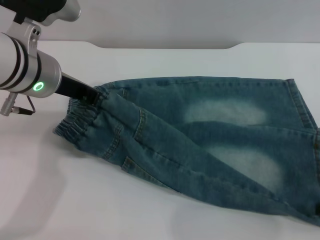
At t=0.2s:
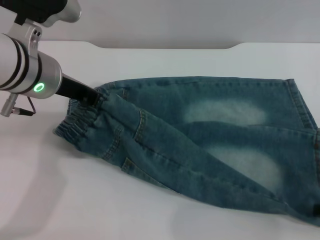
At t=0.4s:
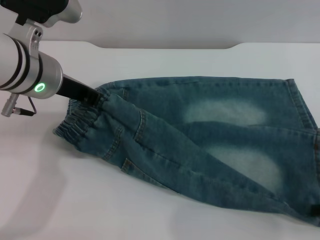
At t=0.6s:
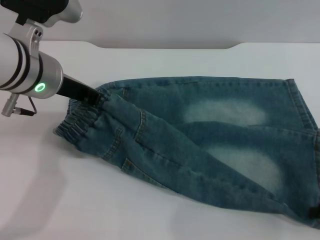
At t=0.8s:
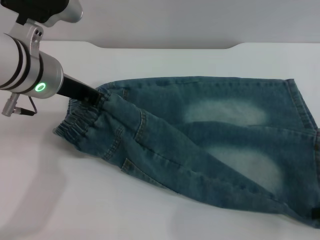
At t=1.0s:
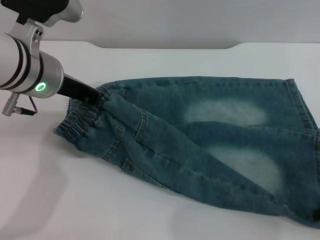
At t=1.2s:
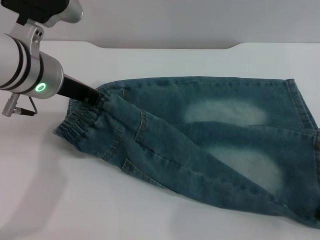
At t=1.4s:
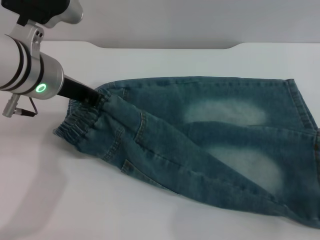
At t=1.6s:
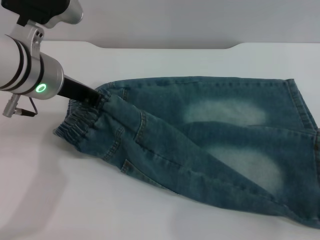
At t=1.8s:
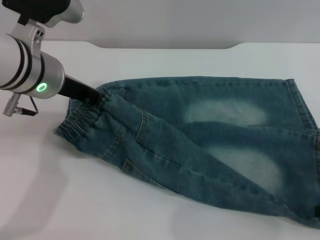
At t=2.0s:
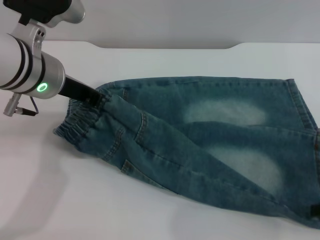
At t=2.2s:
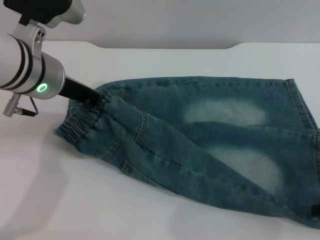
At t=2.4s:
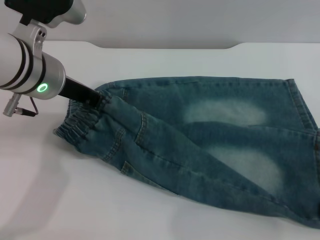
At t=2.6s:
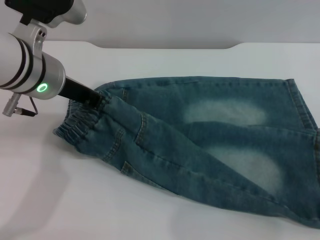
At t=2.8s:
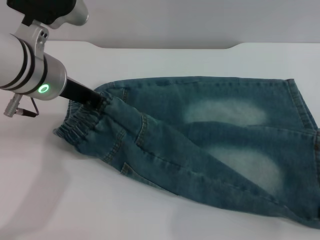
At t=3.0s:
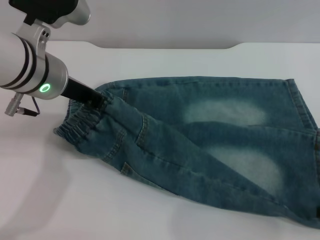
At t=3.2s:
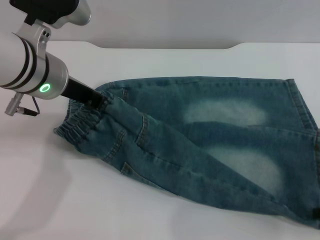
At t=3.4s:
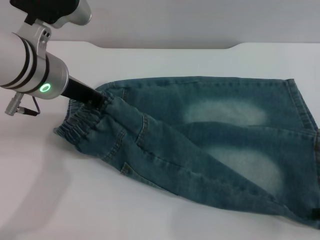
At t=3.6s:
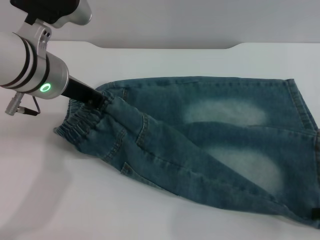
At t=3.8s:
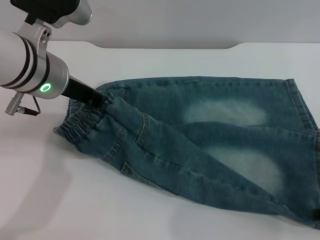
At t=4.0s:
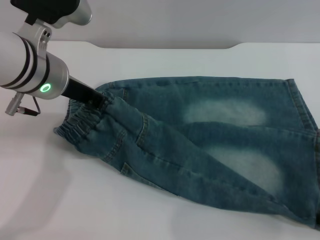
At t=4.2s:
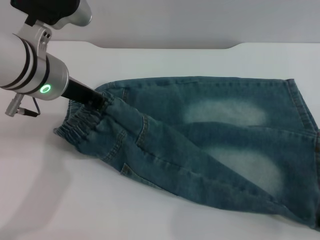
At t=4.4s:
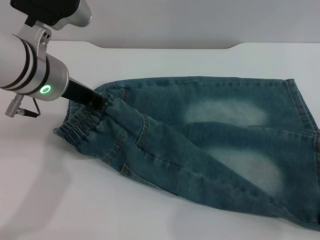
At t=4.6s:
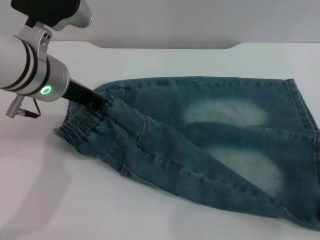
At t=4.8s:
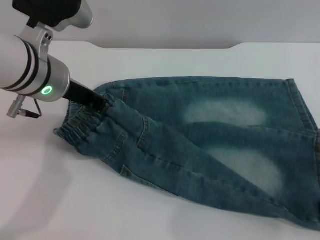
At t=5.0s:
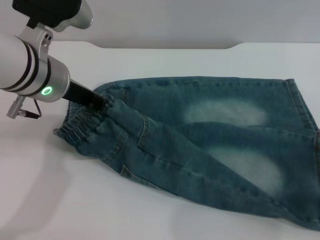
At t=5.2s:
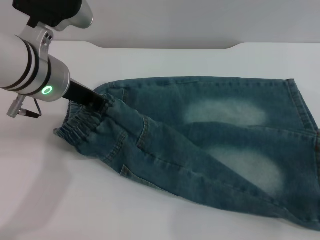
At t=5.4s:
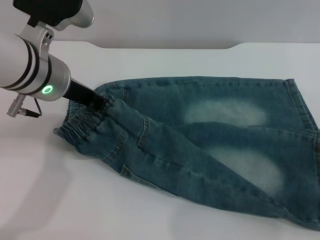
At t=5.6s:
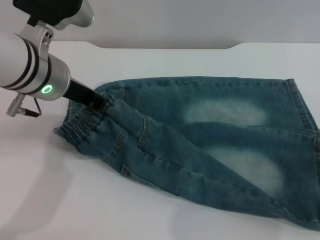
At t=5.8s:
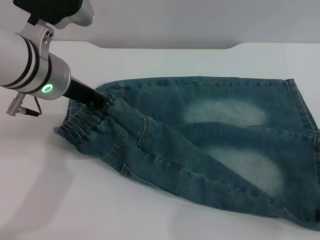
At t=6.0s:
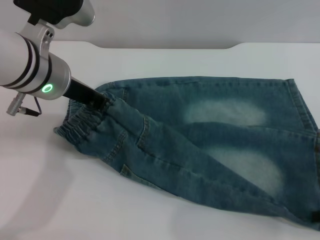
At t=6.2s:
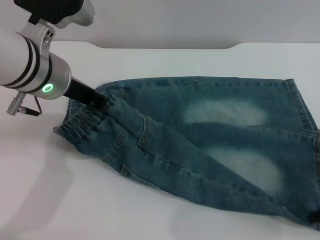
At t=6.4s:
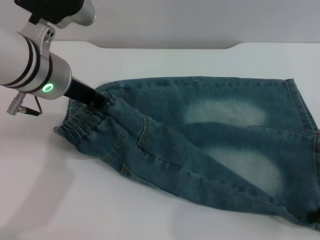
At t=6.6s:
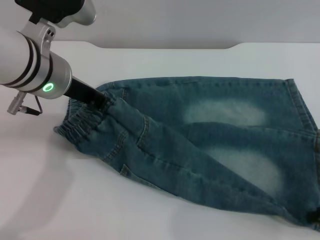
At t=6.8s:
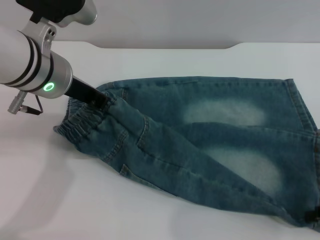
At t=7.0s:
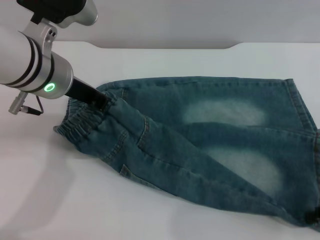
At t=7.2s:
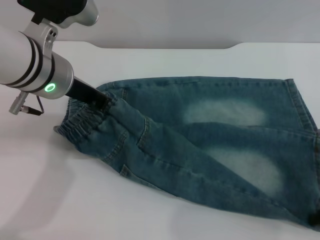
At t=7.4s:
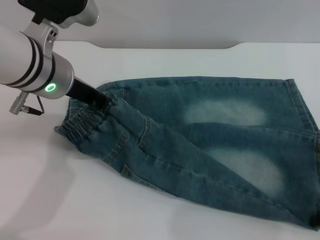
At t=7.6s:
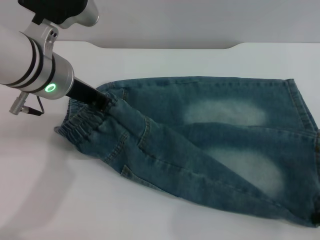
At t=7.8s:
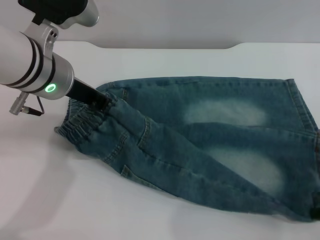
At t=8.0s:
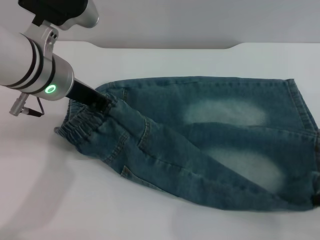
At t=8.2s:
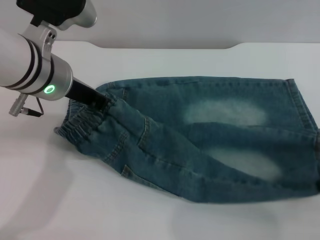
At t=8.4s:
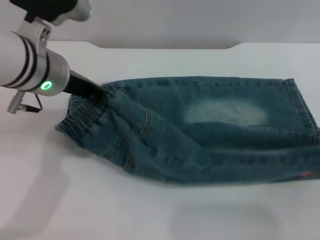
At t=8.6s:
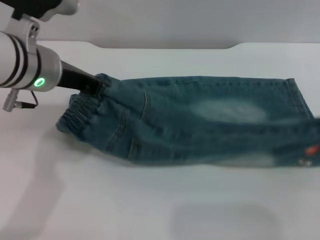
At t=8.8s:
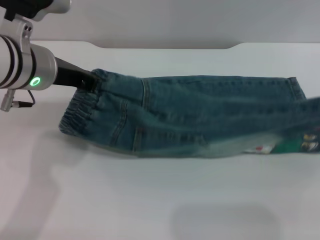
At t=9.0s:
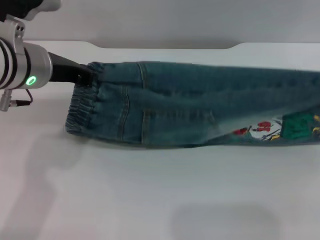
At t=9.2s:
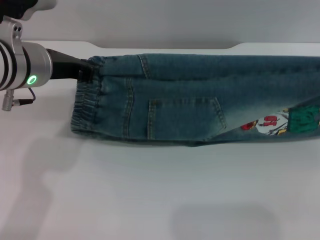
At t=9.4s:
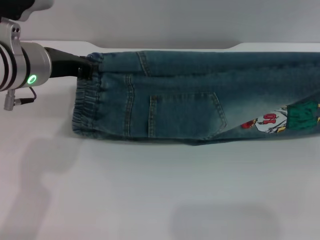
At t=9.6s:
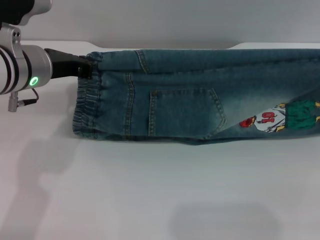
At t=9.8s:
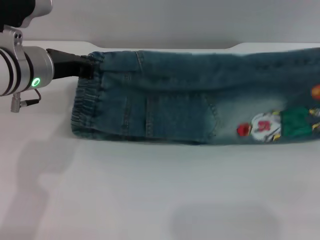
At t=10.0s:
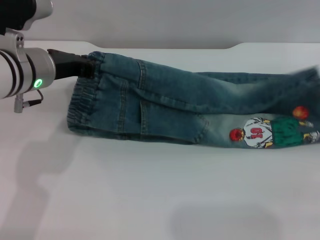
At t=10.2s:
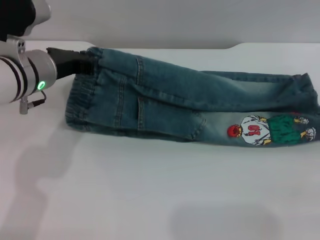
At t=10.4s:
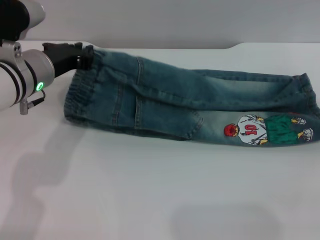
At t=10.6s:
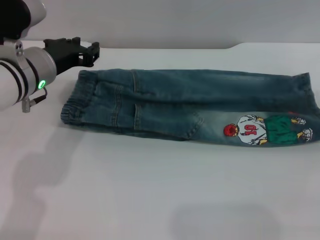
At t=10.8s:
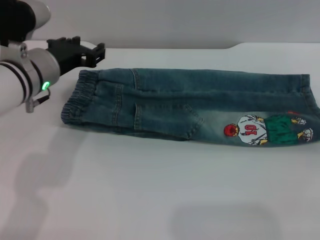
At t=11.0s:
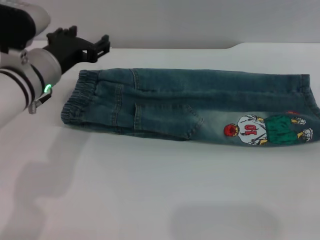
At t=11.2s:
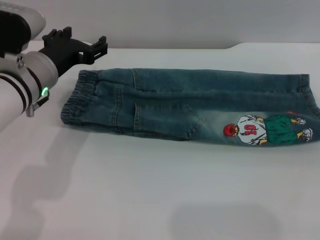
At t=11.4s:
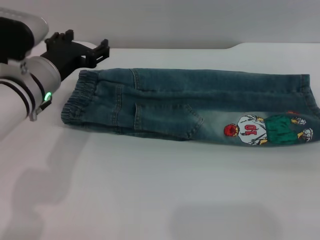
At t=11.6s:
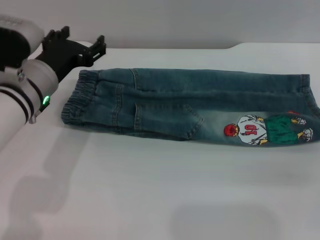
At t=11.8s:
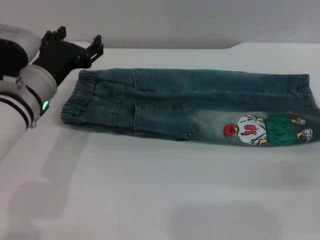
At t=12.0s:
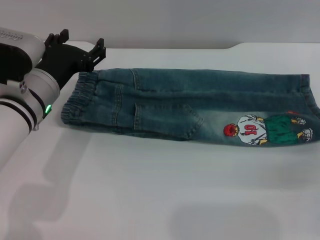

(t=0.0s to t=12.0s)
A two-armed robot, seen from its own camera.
t=0.0s - t=1.6s: The right gripper closes.
t=7.6s - t=9.0s: The right gripper heads upward, covering about 15 cm.
t=9.0s - t=10.4s: The left gripper shifts some 5 cm downward. The right gripper travels downward and forward by approximately 10 cm.
t=10.4s - t=12.0s: The right gripper is displaced downward by approximately 10 cm, and opens, while the left gripper opens up.

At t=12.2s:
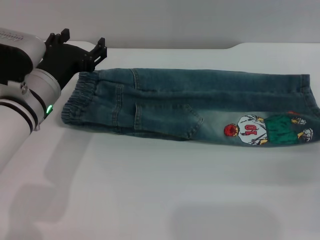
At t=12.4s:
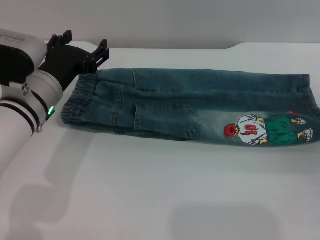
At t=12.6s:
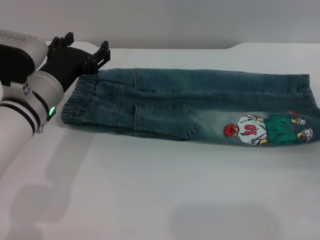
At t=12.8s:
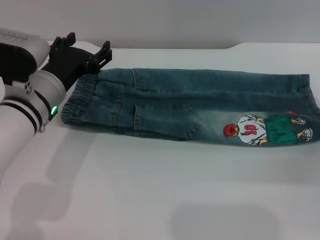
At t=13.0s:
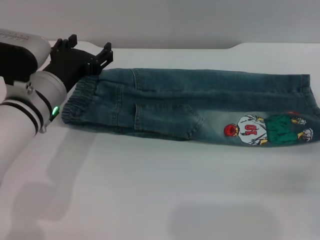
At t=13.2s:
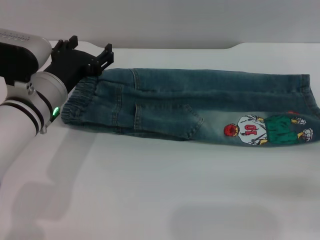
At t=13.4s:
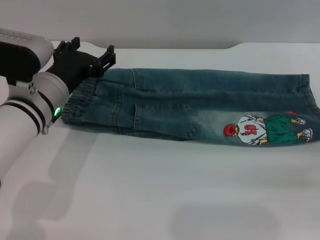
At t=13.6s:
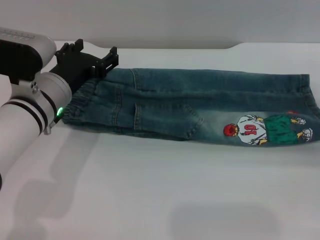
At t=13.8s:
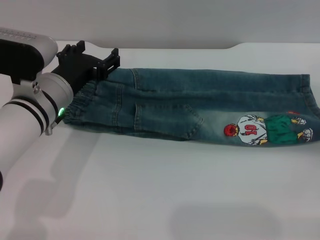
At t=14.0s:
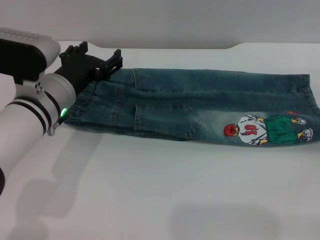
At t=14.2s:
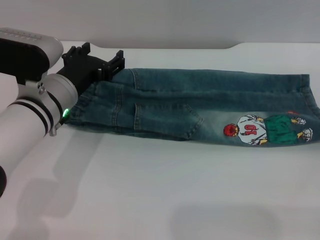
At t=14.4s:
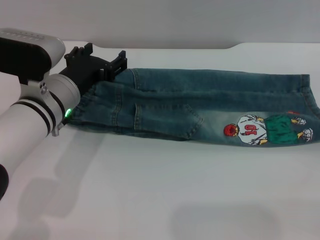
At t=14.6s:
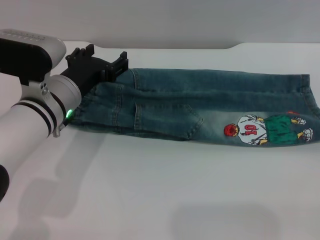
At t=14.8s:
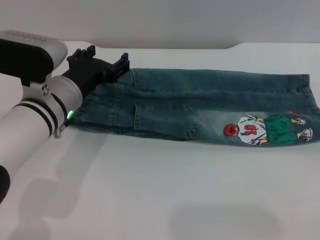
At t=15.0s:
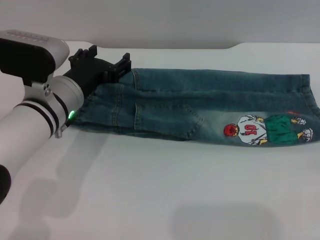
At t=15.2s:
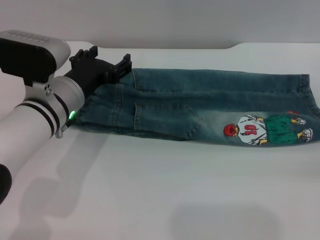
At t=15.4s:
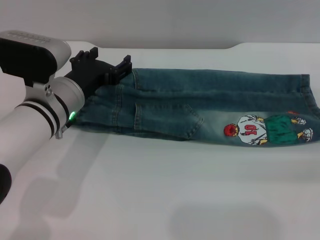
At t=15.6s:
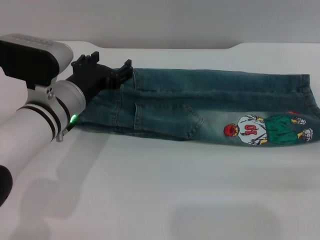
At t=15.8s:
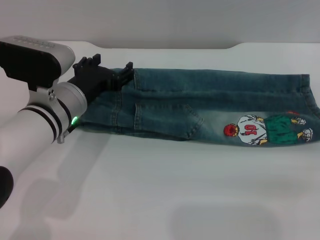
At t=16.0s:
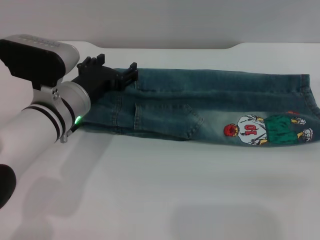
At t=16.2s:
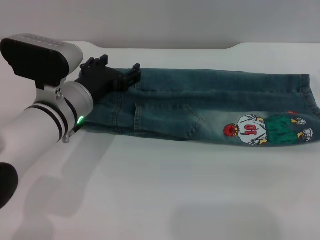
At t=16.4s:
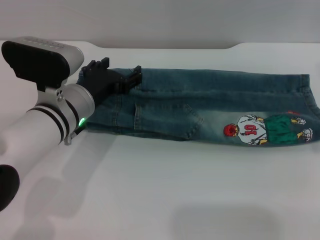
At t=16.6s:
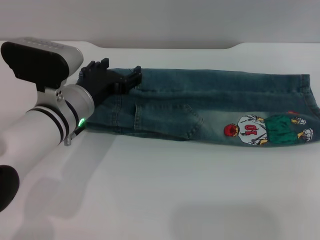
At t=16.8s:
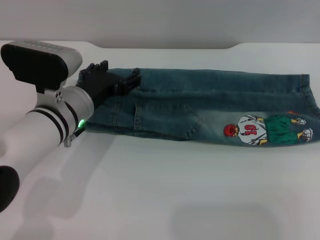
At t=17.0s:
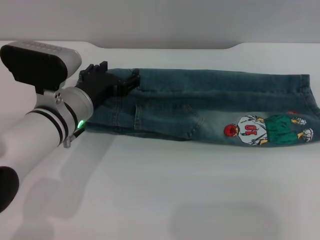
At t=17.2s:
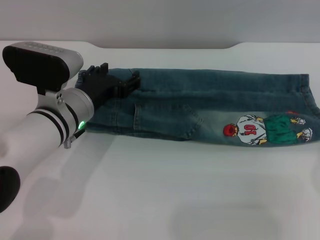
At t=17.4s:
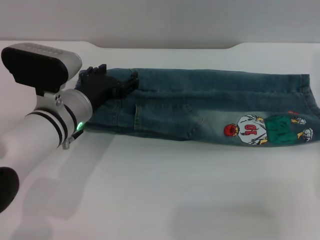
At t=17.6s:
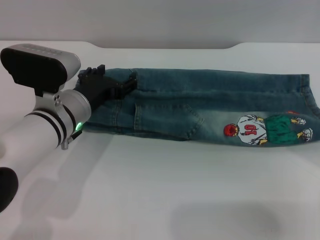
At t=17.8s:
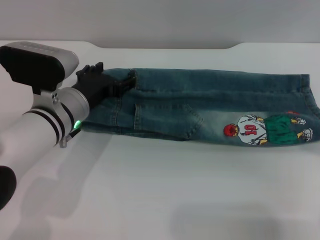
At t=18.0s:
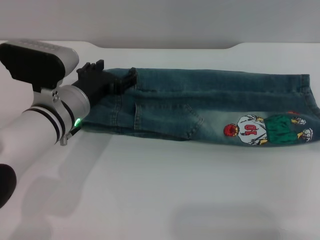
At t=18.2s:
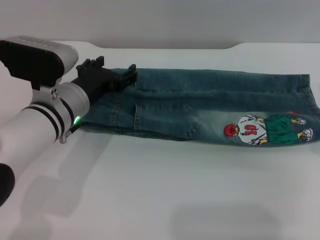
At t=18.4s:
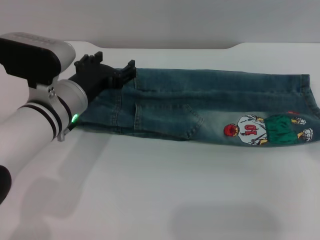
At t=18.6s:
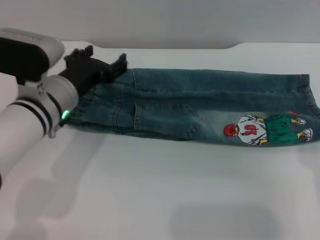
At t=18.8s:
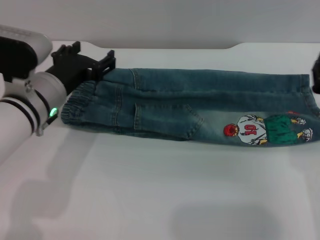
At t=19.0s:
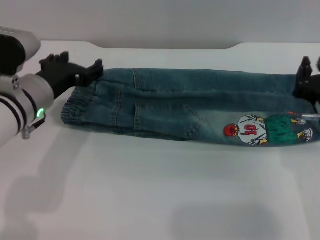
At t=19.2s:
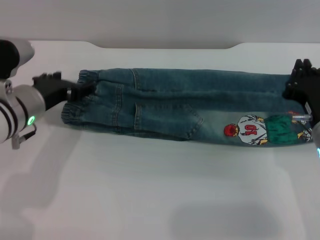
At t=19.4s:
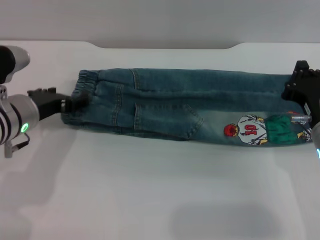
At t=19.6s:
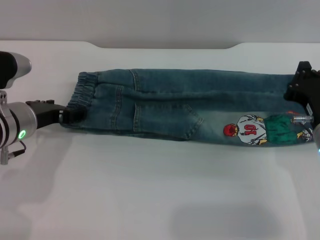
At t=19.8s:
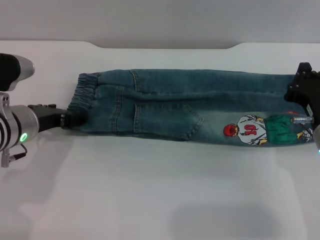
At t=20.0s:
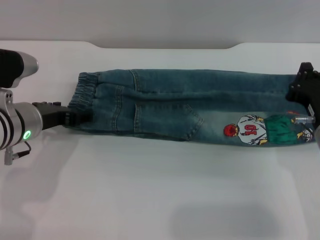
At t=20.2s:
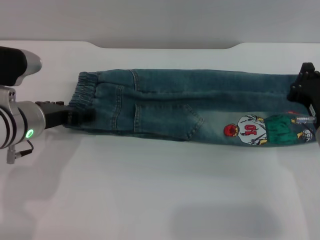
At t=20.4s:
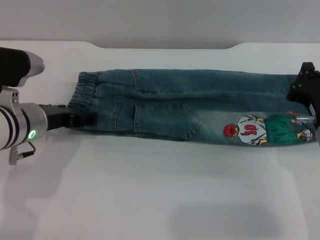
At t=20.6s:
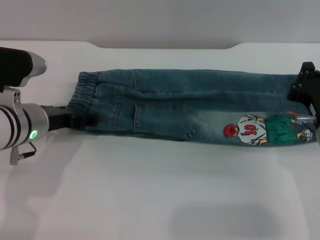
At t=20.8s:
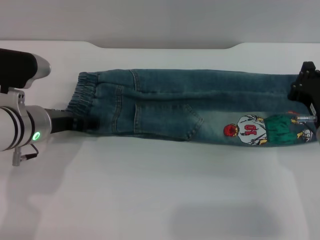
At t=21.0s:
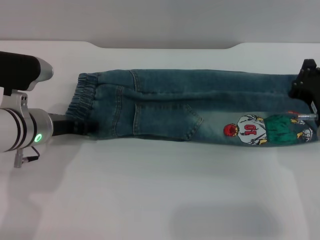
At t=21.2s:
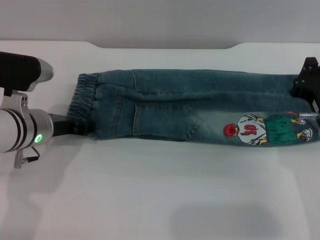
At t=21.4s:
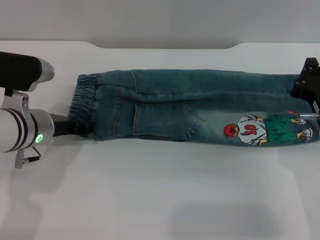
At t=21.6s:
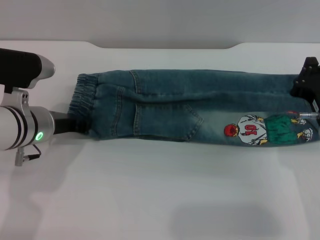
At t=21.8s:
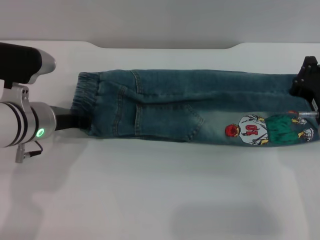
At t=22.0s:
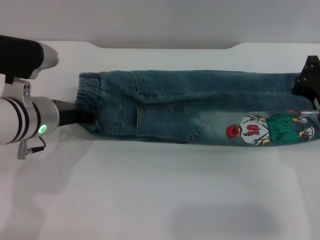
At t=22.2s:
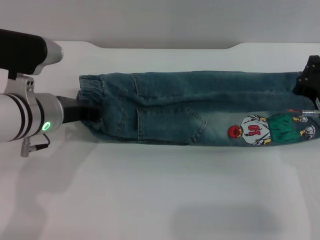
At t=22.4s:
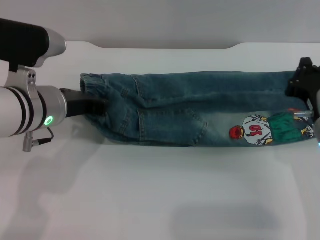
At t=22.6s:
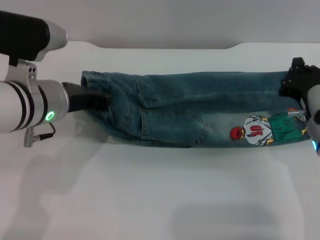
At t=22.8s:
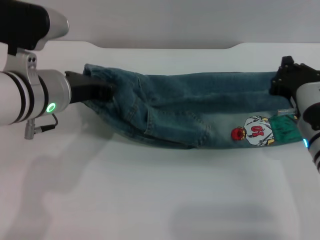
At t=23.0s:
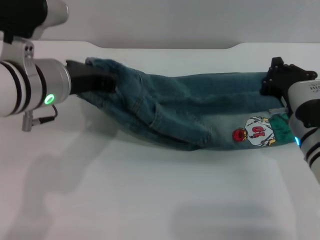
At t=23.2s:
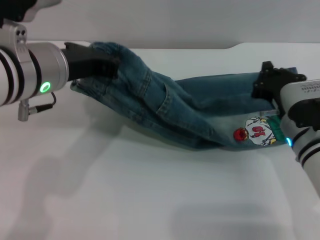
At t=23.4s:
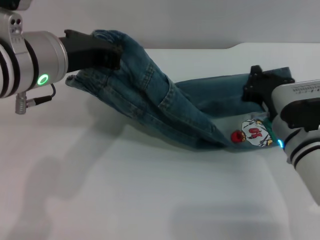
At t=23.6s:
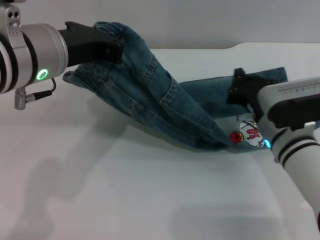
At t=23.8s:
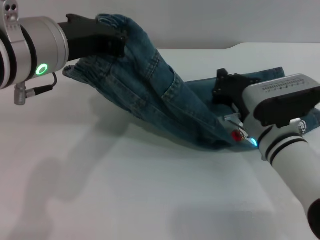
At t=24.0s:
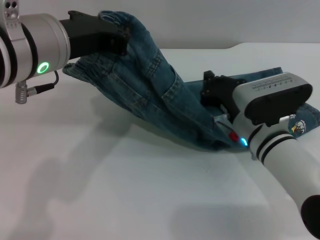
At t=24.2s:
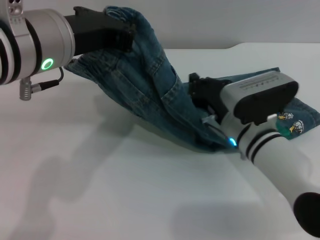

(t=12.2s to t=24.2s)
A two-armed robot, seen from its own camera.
t=12.2s - t=13.8s: The right gripper travels to the right by roughly 5 cm.
t=13.8s - t=15.2s: The right gripper is displaced backward by about 5 cm.
t=15.2s - t=16.6s: The right gripper moves to the left, upward and forward, approximately 15 cm.
t=18.2s - t=19.8s: The right gripper moves to the left and downward, roughly 10 cm, and closes, while the left gripper shifts roughly 5 cm to the left.
t=19.8s - t=21.2s: The grippers move only a little.
t=21.2s - t=22.6s: The left gripper moves upward, about 5 cm, and closes.
t=22.6s - t=24.2s: The right gripper moves to the left, approximately 10 cm, while the left gripper travels upward by some 10 cm.
